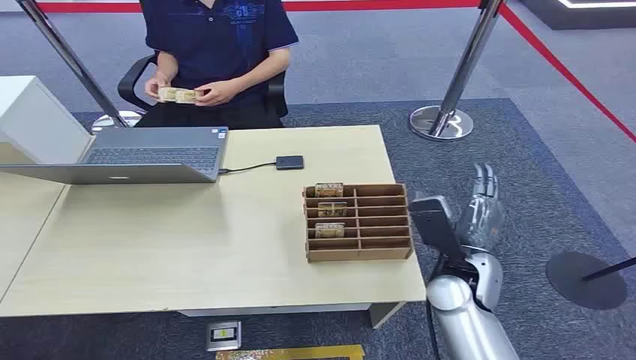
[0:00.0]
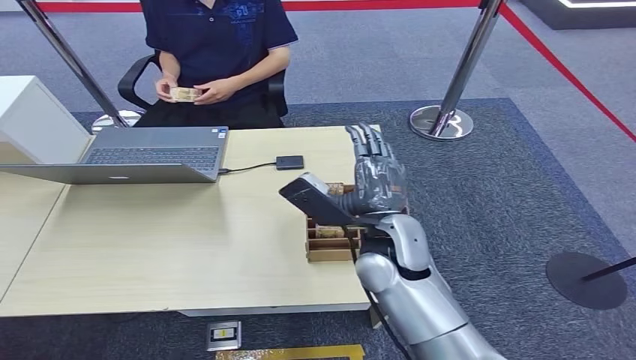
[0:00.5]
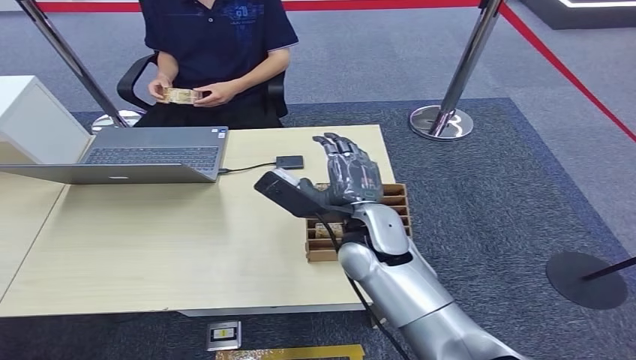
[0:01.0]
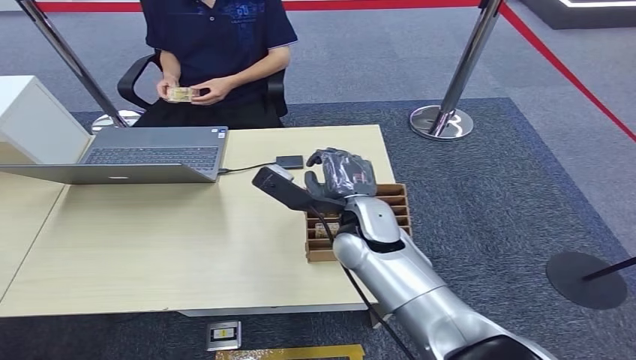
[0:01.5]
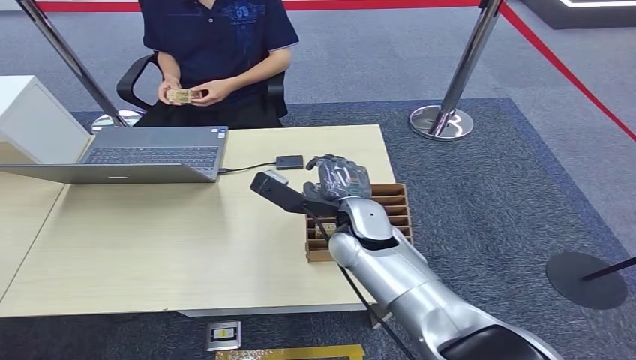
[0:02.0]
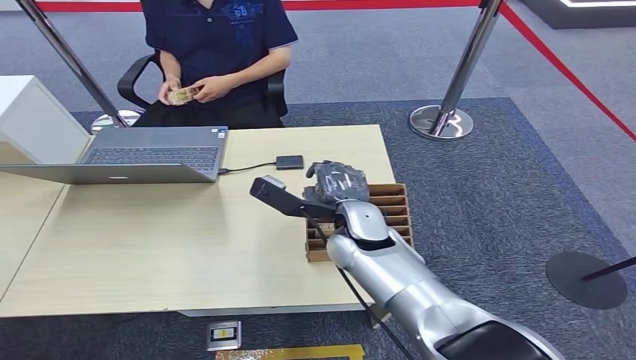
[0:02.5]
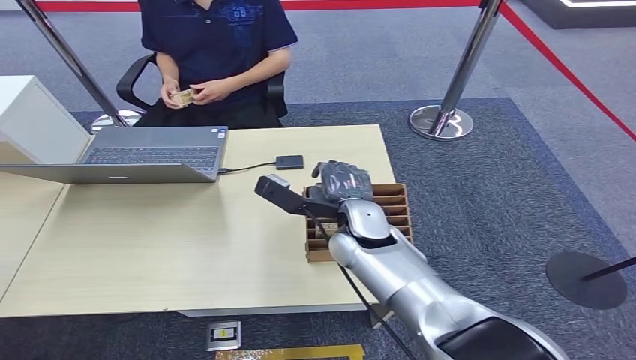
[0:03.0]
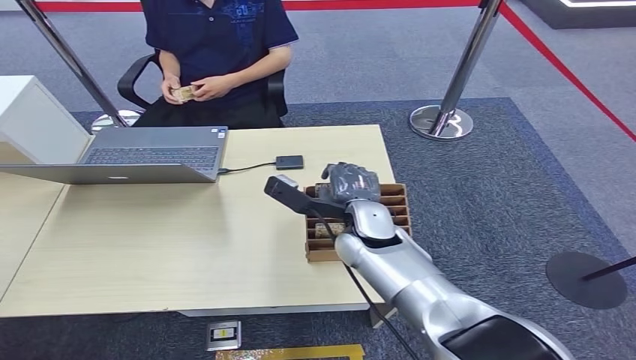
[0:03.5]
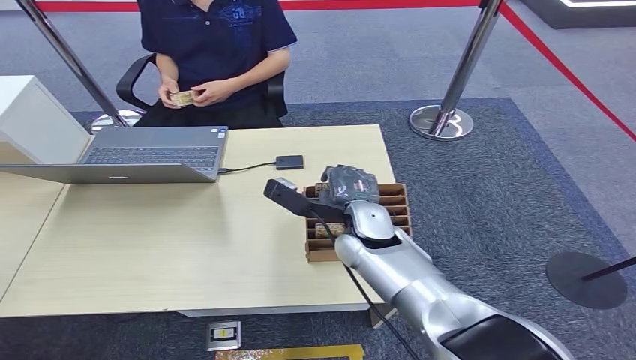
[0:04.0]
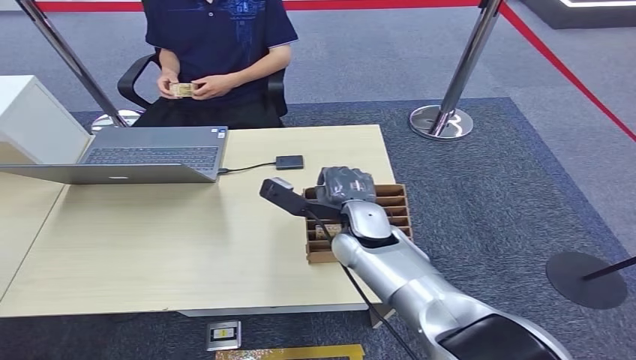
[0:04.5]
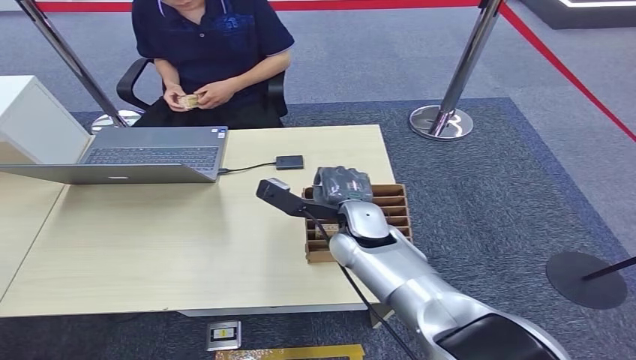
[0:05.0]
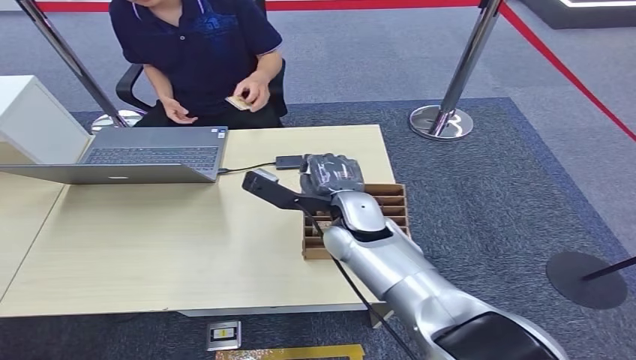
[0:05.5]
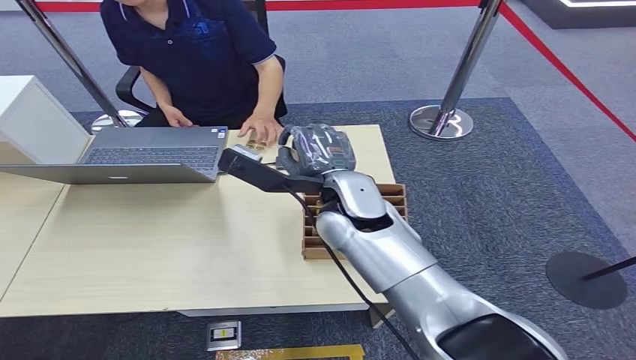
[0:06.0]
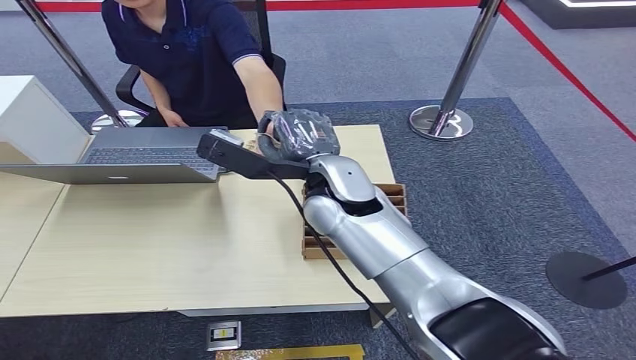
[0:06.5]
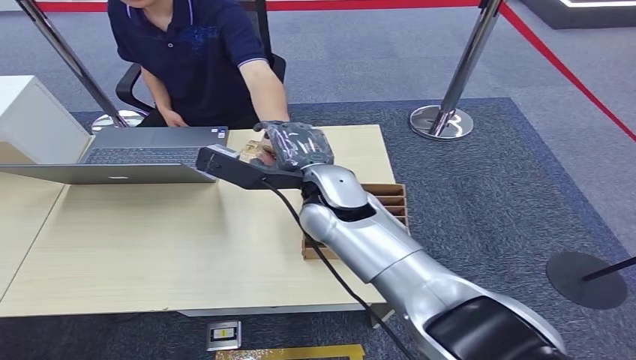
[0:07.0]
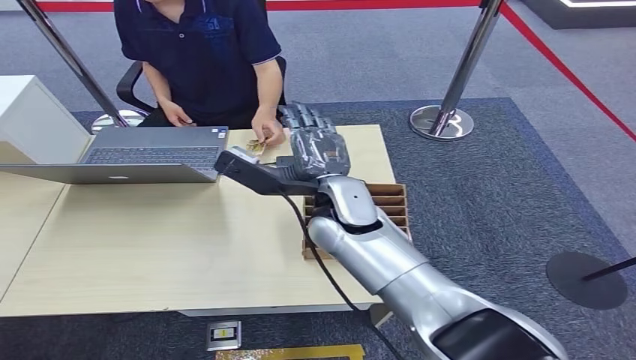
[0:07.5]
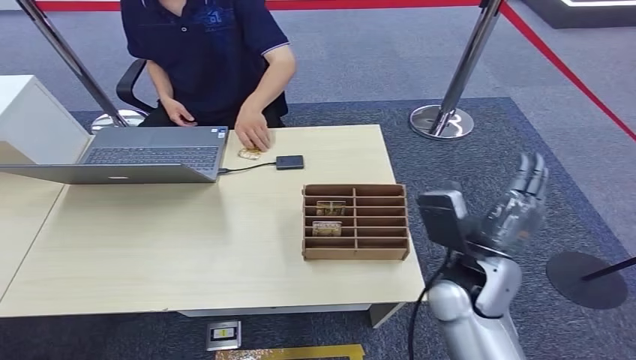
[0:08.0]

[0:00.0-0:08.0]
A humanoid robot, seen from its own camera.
Step, 0:00.0 to 0:05.0: Pick up the key card from the card box.
Step, 0:05.5 to 0:08.0: Hand the key card to the target.
0:02.0 to 0:04.0: There are only small adjustments of the hands.
0:04.0 to 0:06.0: The right hand is displaced upward by about 10 cm.
0:06.0 to 0:08.0: The right hand heads to the right, backward and downward, covering approximately 20 cm.
